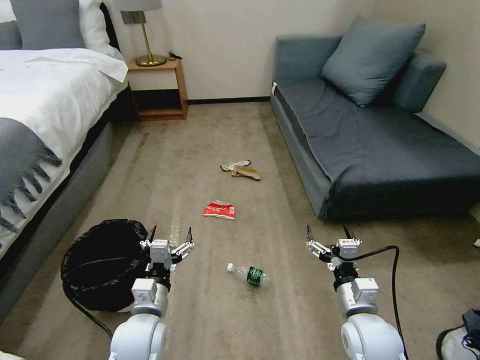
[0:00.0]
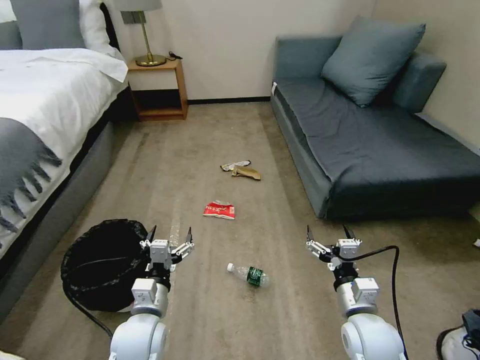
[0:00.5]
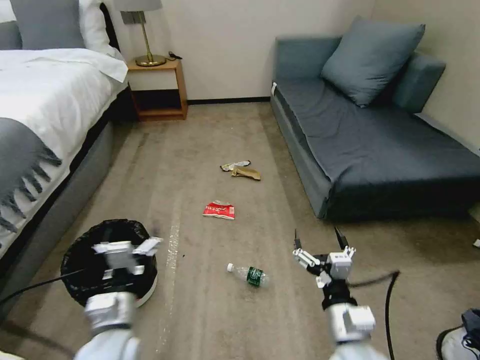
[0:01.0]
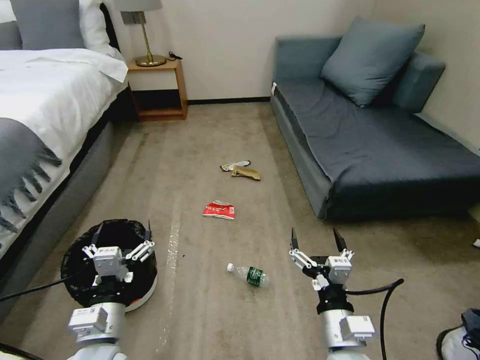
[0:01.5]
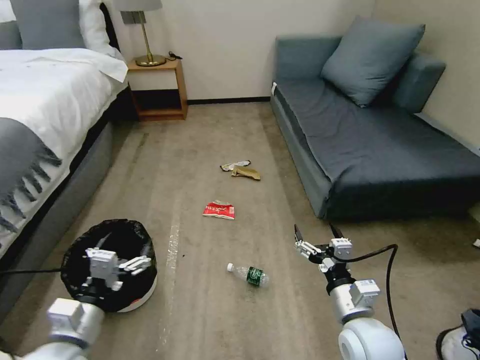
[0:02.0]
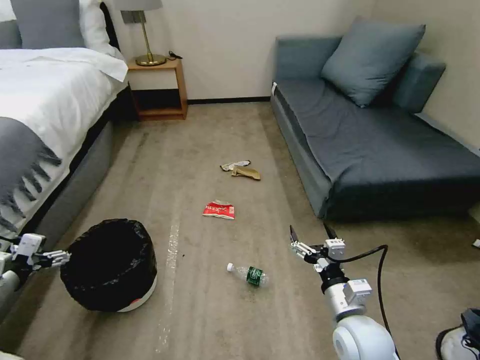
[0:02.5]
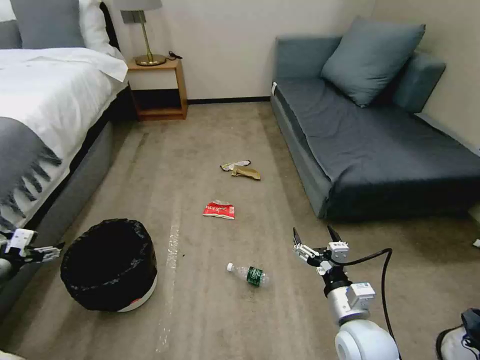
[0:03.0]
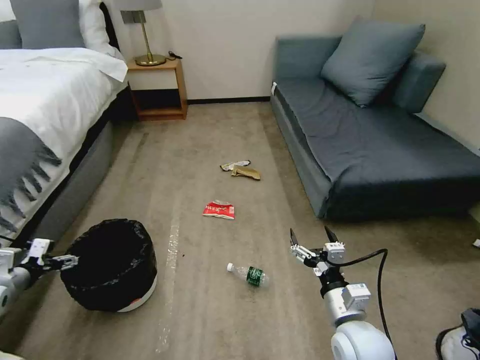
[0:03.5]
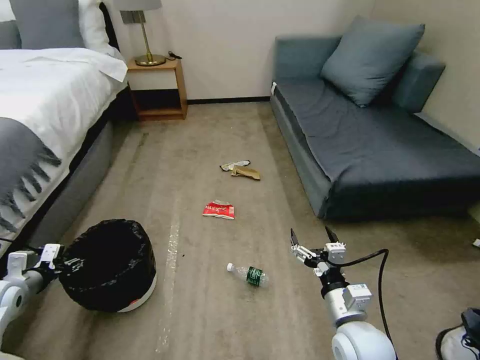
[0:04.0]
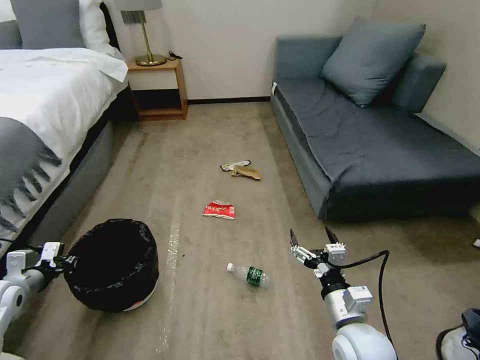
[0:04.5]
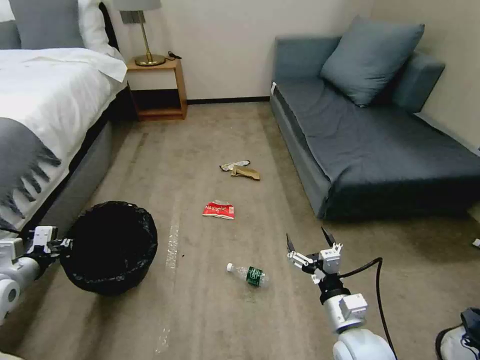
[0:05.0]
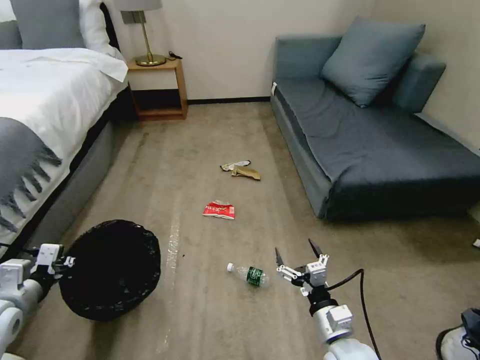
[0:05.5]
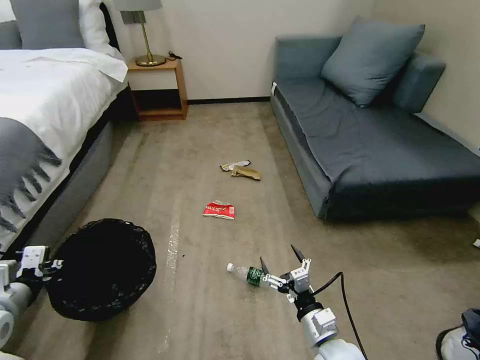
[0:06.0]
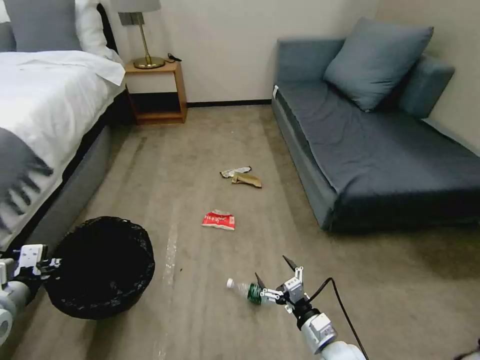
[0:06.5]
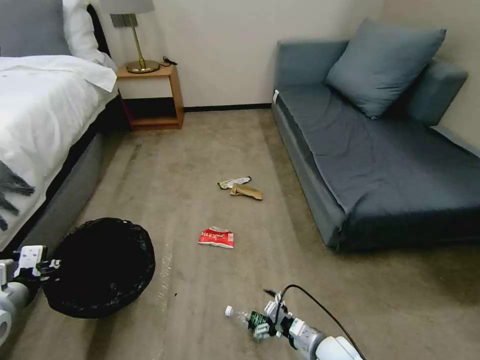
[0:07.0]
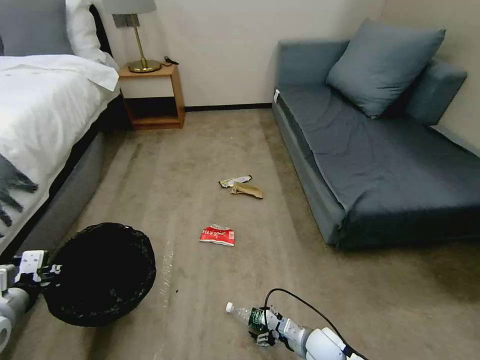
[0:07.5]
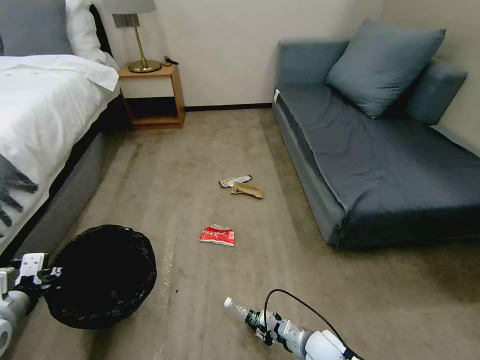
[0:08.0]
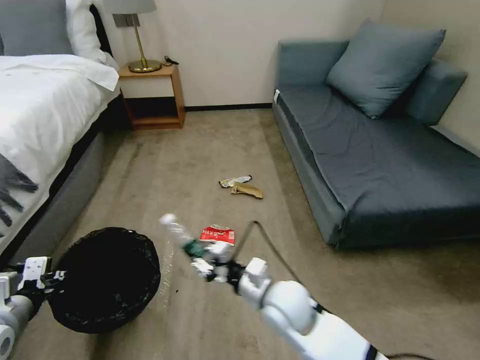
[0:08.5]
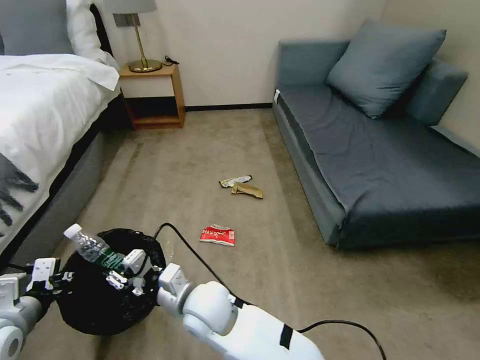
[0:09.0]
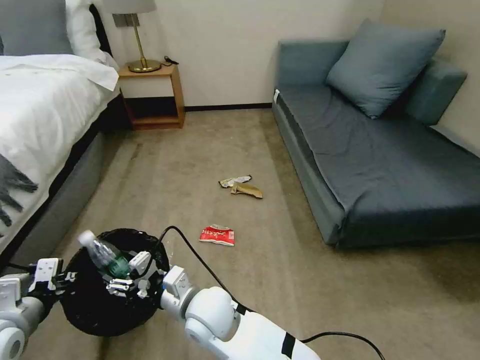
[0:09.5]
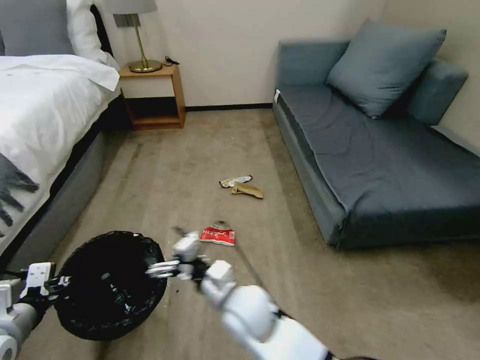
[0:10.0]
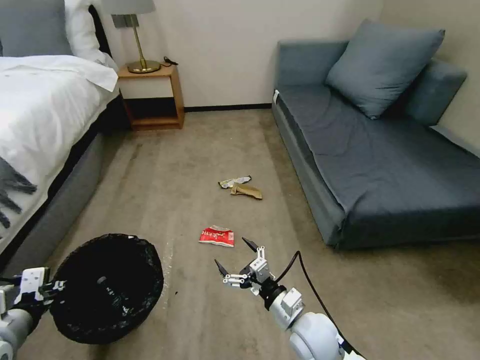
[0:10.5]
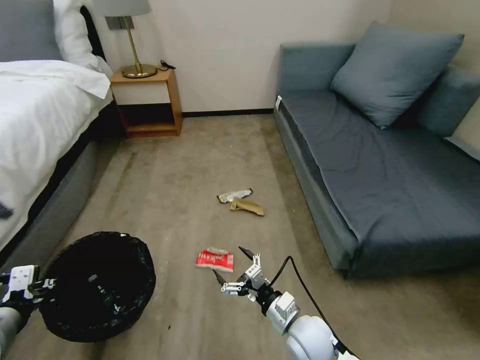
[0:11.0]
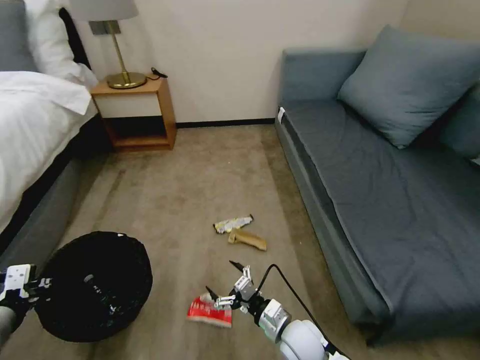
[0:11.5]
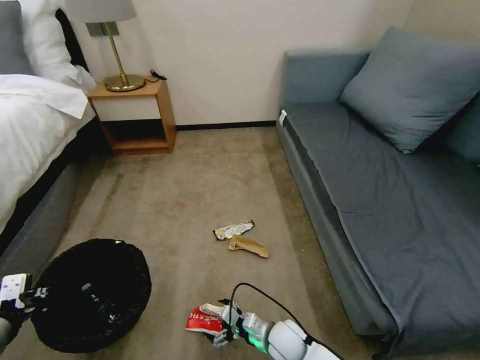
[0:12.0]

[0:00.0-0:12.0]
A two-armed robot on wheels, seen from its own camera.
Task of the whole recording: Pick up the trash bin, then pick up the garbage on the floor and place it into the trash bin.
0:02.0 to 0:04.0: The left gripper goes about 25 cm to the left and forward, and closes.
0:04.0 to 0:06.0: The left gripper heads to the right, upward and backward, covering some 15 cm, and closes its fingers; the right gripper goes roughly 10 cm downward.
0:06.0 to 0:08.0: The right gripper heads downward, covering roughly 10 cm, and closes.
0:08.0 to 0:10.0: The right gripper travels to the left and upward by approximately 25 cm, and opens.
0:10.0 to 0:12.0: The right gripper travels downward and to the right by roughly 20 cm.

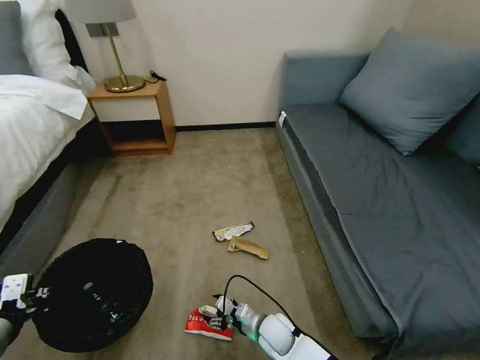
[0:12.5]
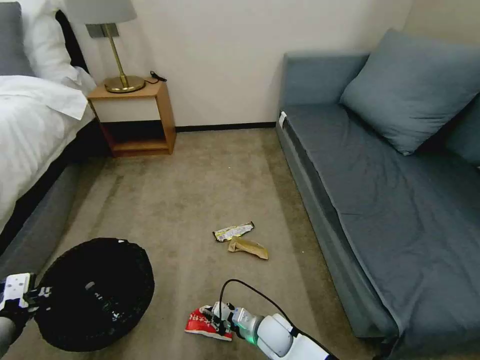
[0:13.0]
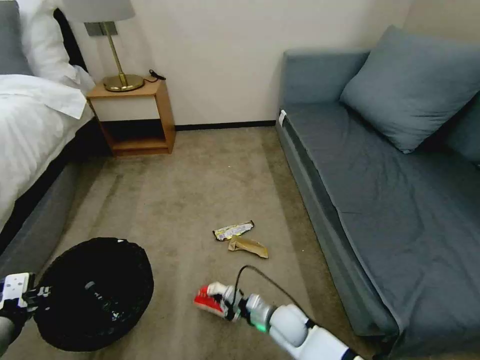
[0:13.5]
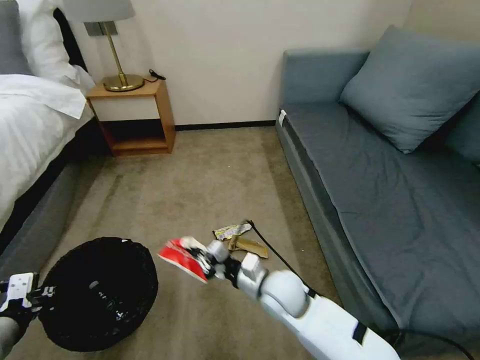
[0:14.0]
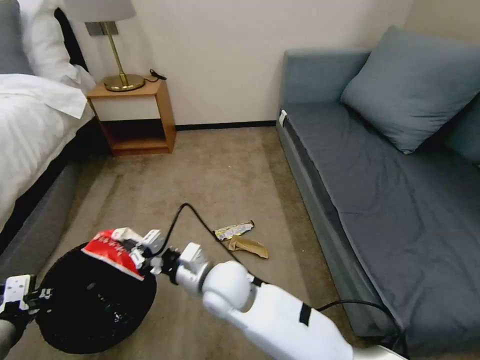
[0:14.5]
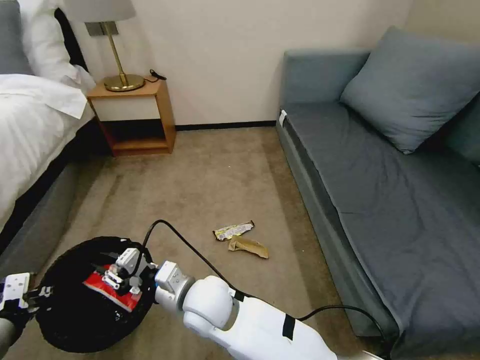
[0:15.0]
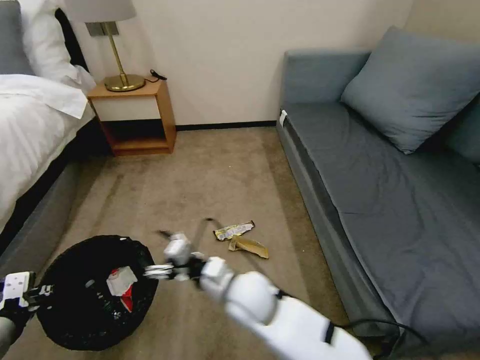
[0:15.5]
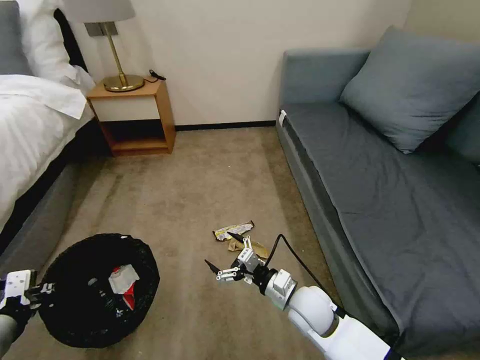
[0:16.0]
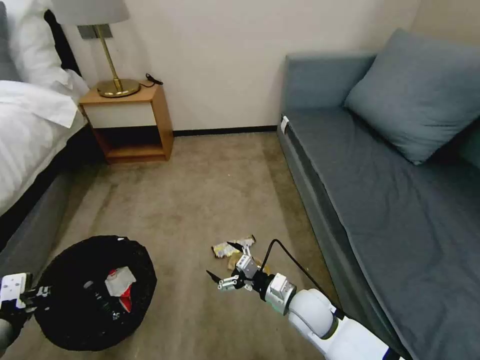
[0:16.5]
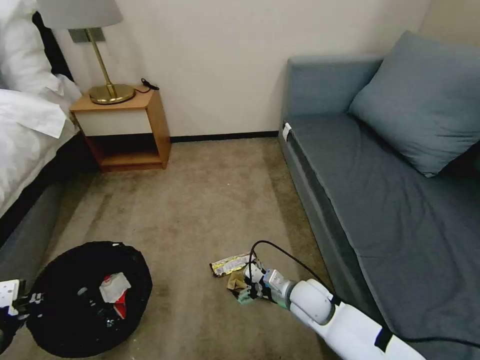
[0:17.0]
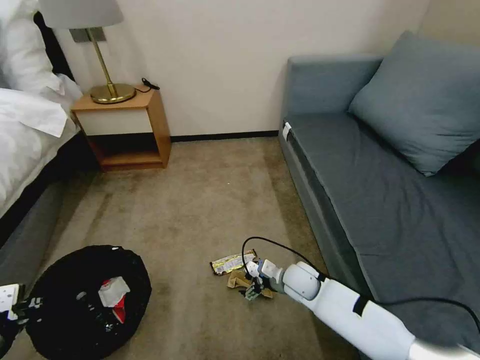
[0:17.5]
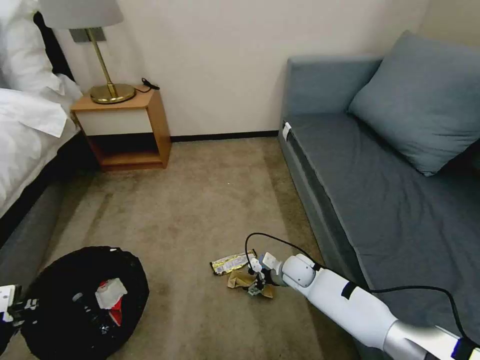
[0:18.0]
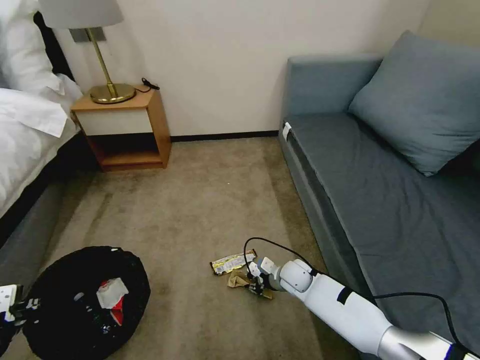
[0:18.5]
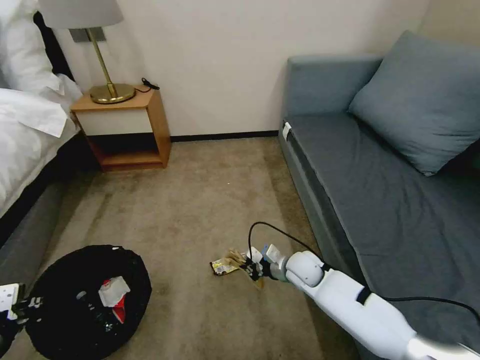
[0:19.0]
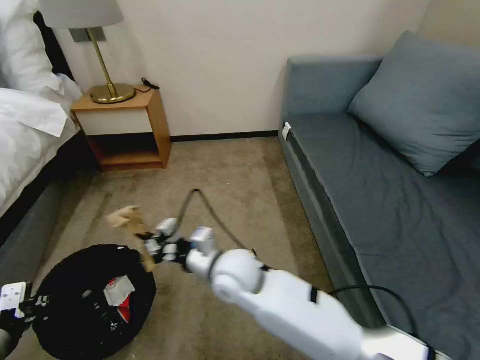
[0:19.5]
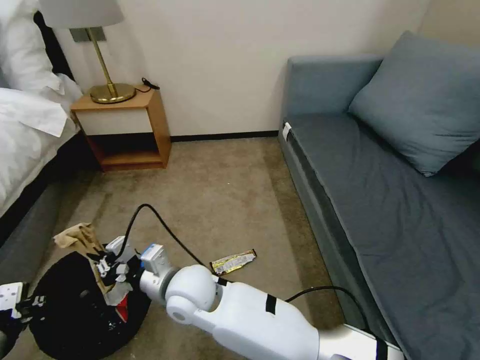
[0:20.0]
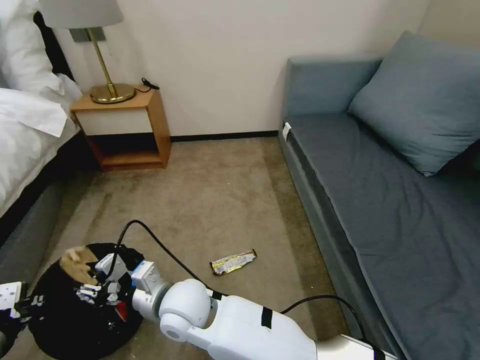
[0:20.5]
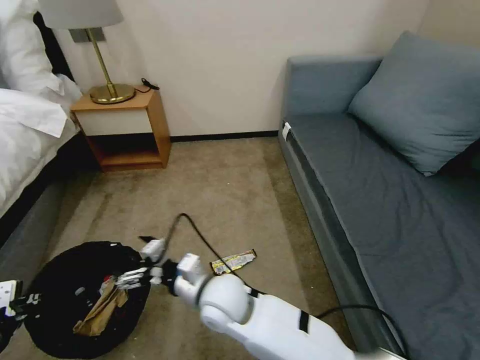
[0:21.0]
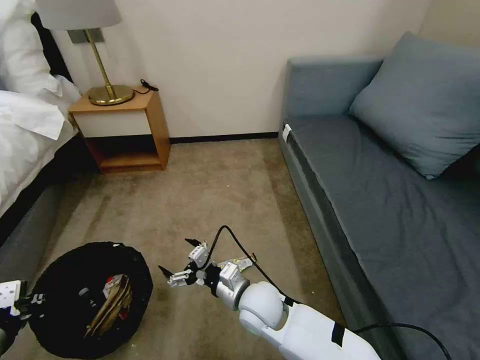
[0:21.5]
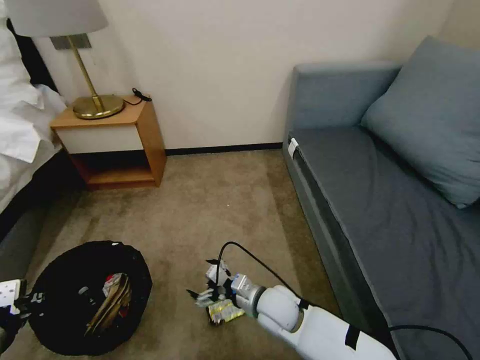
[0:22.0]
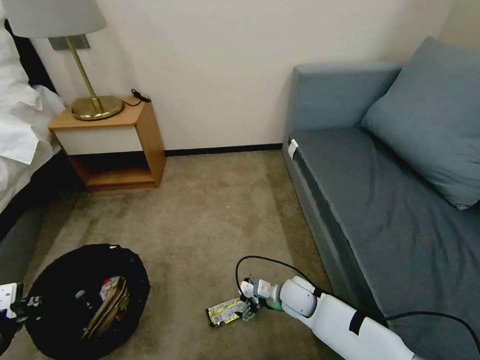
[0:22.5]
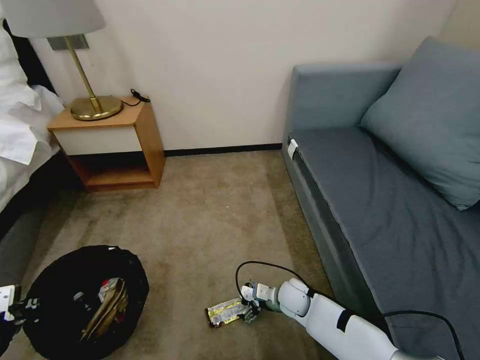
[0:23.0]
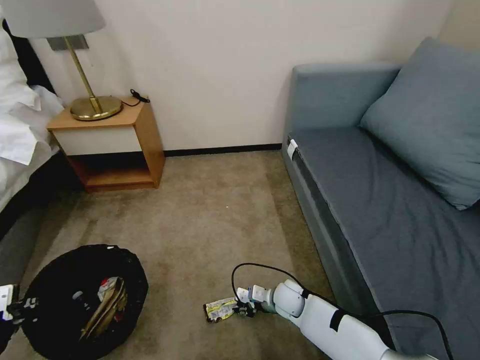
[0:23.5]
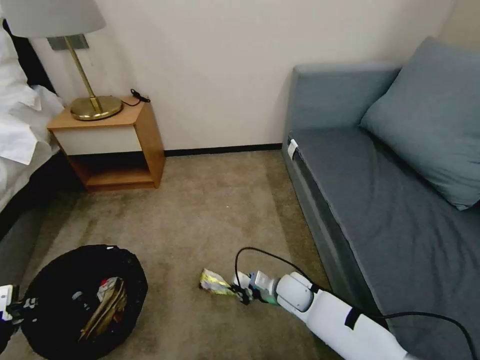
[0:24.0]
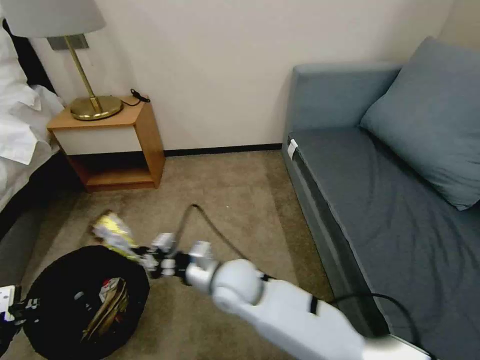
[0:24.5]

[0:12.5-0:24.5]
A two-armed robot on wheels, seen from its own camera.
Task of the whole recording: Pick up the trash bin, then pick up the garbage on the floor and place it into the trash bin.
0:12.5 to 0:14.5: The right gripper shifts roughly 30 cm upward and to the left, and closes up.
0:14.5 to 0:16.5: The right gripper moves to the right and downward, approximately 20 cm, and opens up.
0:16.5 to 0:18.5: The right gripper goes roughly 15 cm forward and downward, and closes up.
0:18.5 to 0:20.5: The right gripper moves to the left, upward and backward, approximately 35 cm.
0:20.5 to 0:22.5: The right gripper moves to the right and downward, approximately 30 cm, and opens up.
0:22.5 to 0:24.5: The right gripper goes about 25 cm to the left and upward, and closes up.

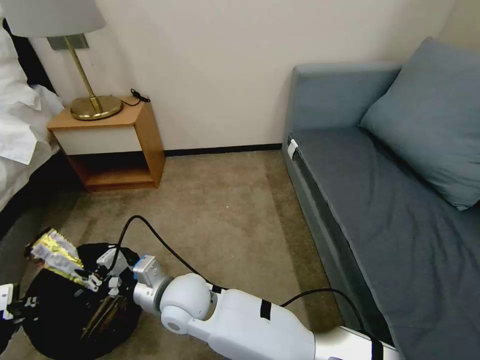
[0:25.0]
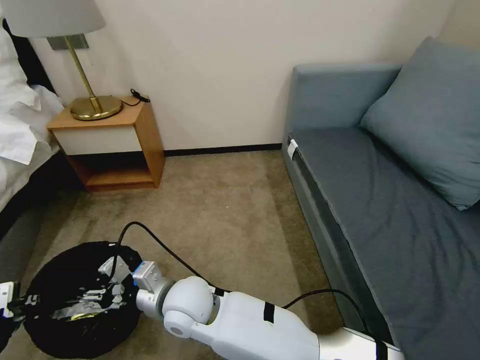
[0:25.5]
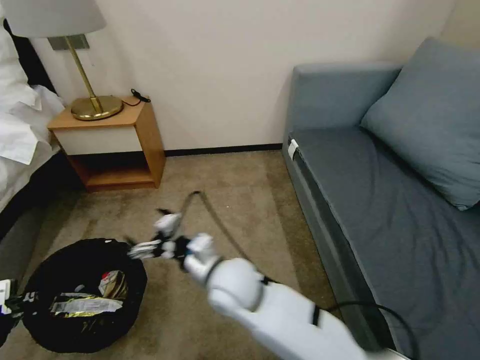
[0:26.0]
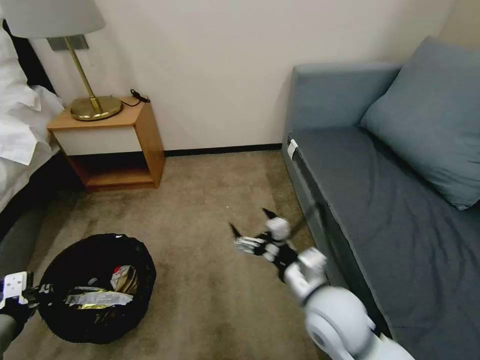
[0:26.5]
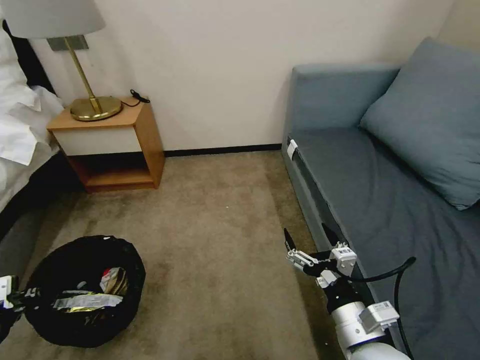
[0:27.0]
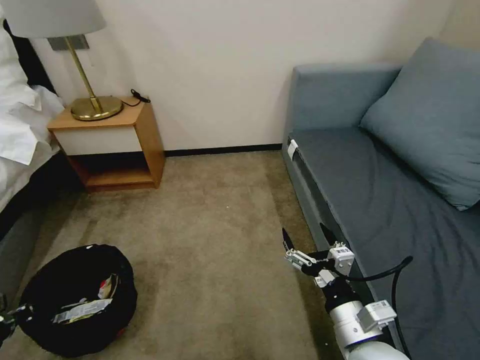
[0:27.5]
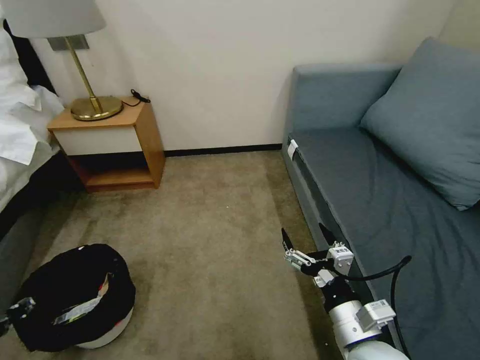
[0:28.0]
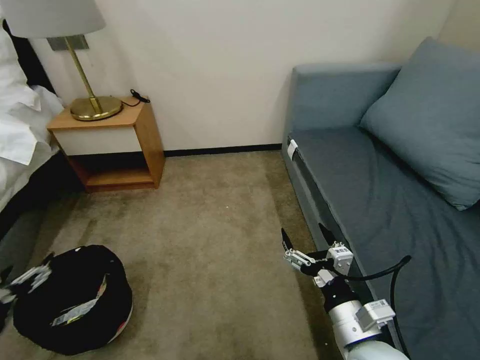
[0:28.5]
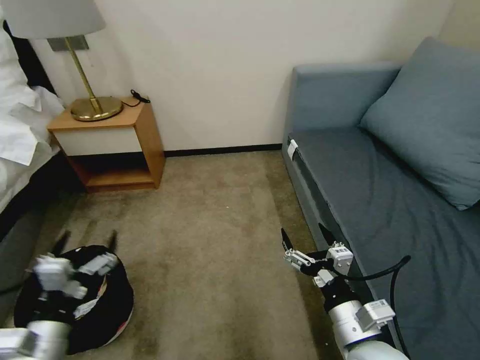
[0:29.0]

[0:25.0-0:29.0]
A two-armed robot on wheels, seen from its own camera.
Task of the whole recording: Pick up the trash bin, then pick up the garbage on the floor and place it into the trash bin.
0:25.0 to 0:27.0: The right gripper goes roughly 35 cm to the right, and opens its fingers.
0:27.0 to 0:29.0: The left gripper is displaced to the right by roughly 15 cm, and opens.
